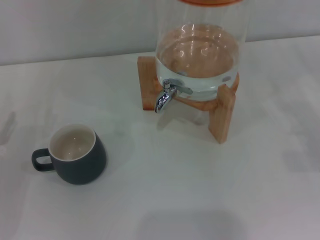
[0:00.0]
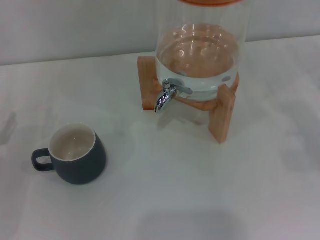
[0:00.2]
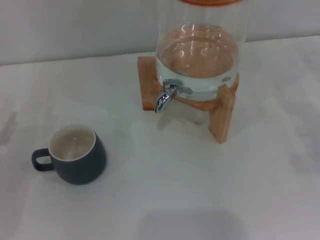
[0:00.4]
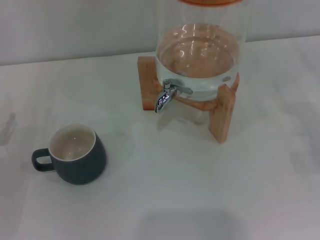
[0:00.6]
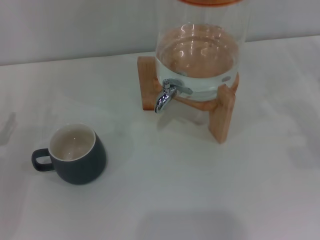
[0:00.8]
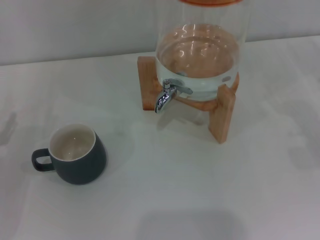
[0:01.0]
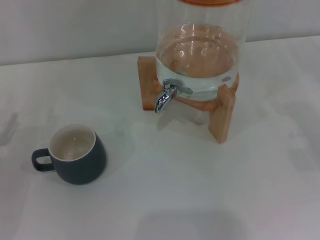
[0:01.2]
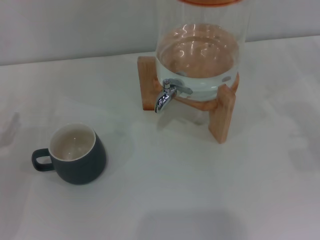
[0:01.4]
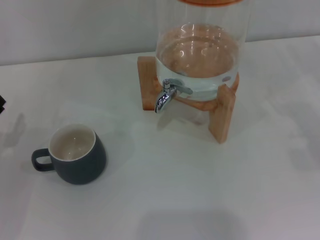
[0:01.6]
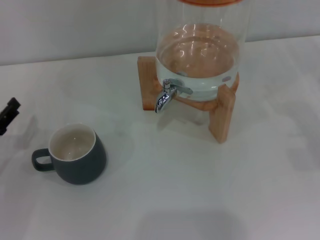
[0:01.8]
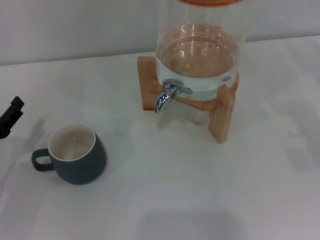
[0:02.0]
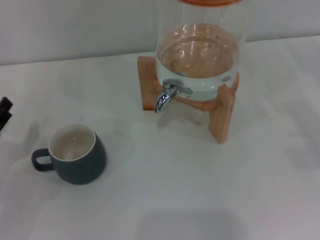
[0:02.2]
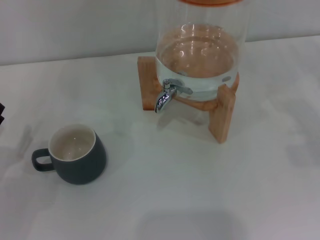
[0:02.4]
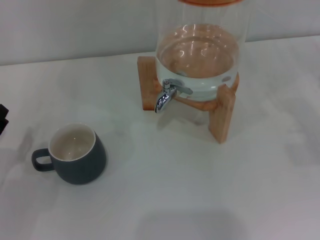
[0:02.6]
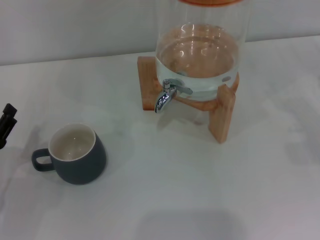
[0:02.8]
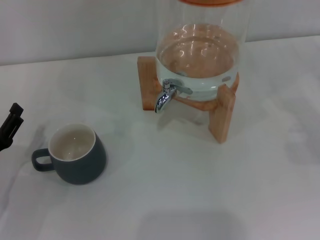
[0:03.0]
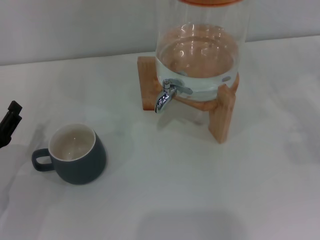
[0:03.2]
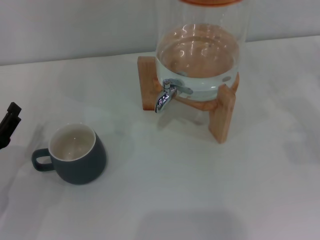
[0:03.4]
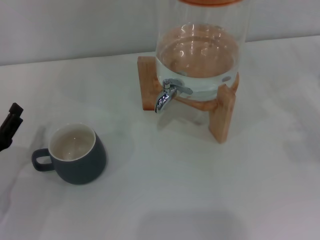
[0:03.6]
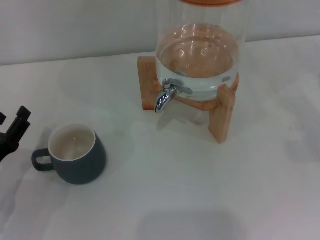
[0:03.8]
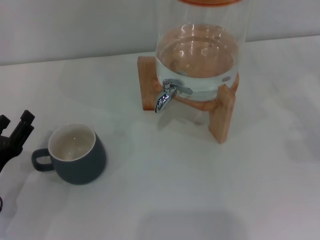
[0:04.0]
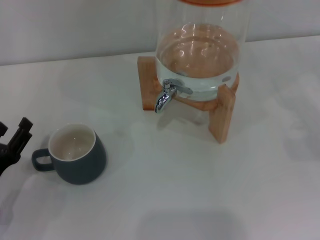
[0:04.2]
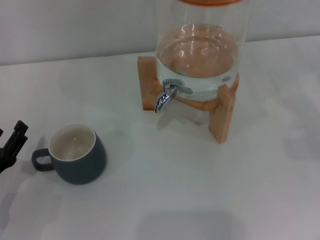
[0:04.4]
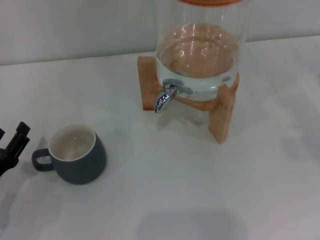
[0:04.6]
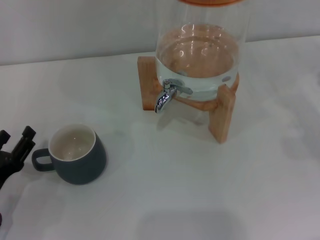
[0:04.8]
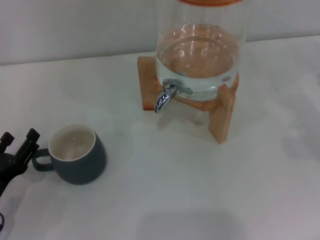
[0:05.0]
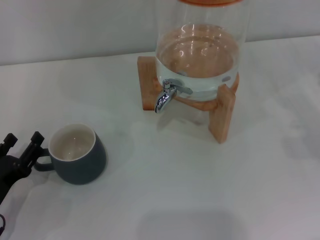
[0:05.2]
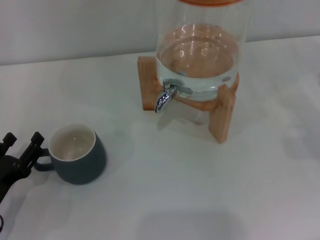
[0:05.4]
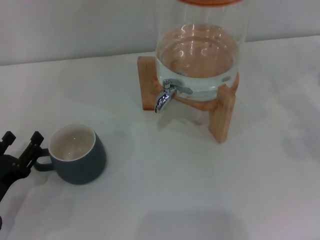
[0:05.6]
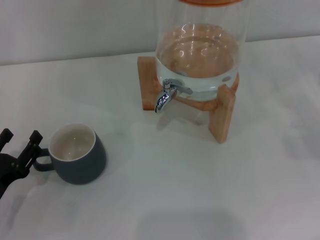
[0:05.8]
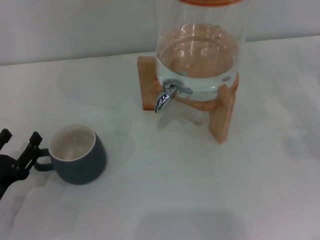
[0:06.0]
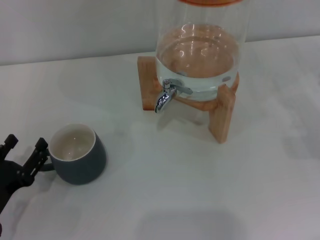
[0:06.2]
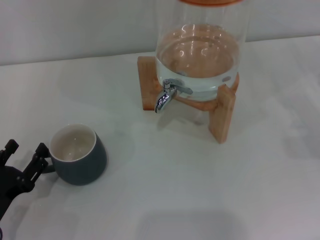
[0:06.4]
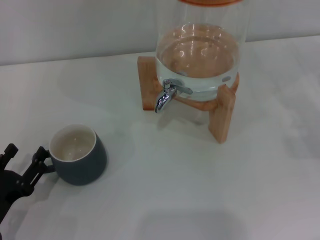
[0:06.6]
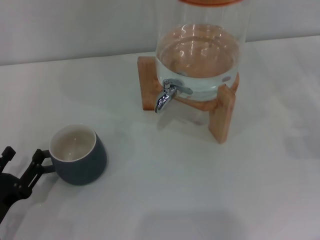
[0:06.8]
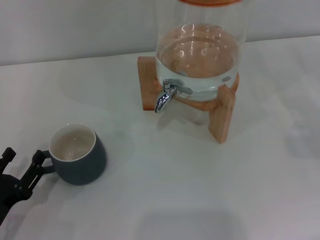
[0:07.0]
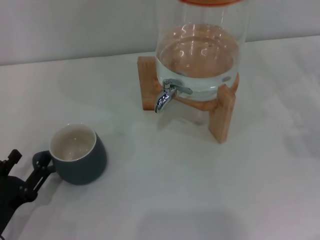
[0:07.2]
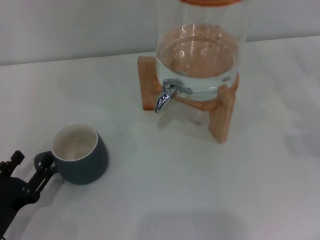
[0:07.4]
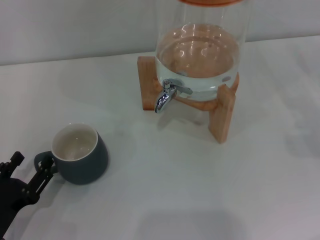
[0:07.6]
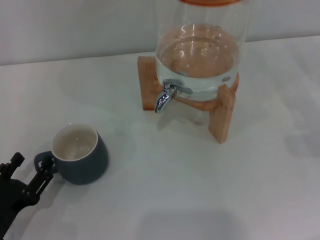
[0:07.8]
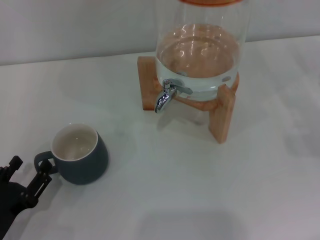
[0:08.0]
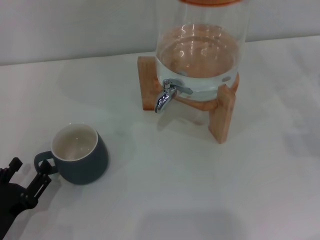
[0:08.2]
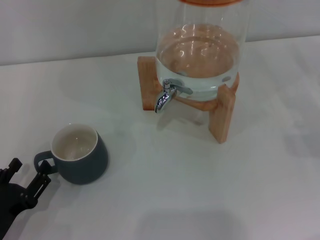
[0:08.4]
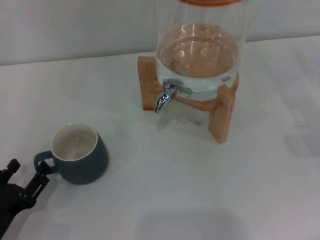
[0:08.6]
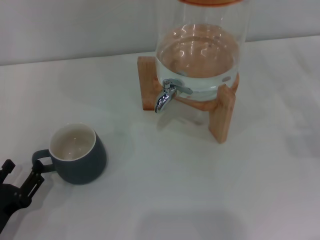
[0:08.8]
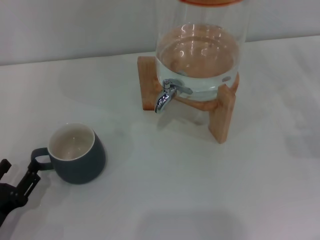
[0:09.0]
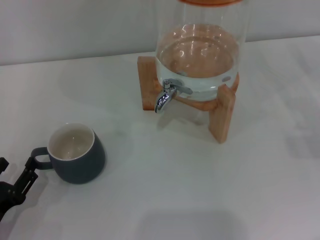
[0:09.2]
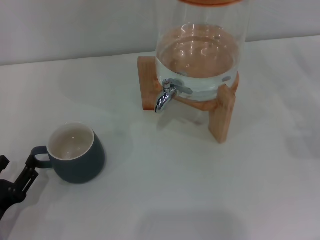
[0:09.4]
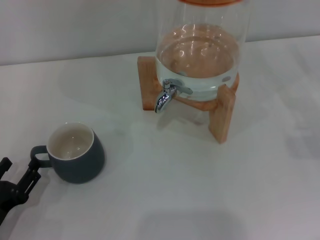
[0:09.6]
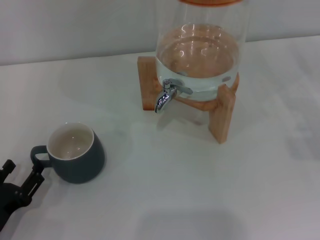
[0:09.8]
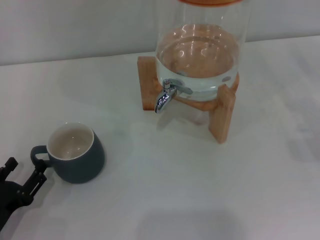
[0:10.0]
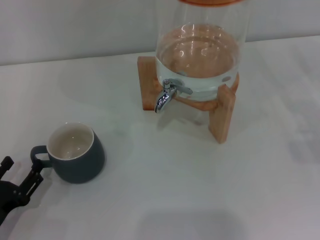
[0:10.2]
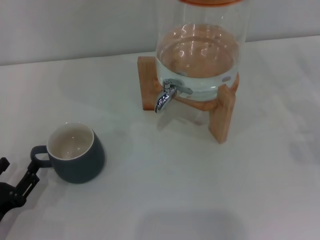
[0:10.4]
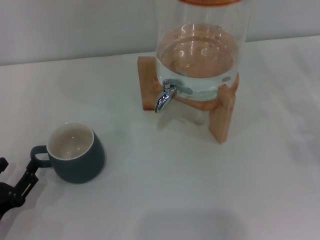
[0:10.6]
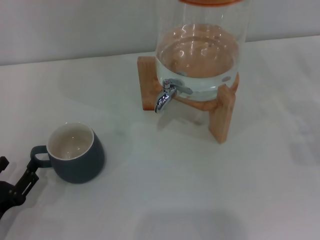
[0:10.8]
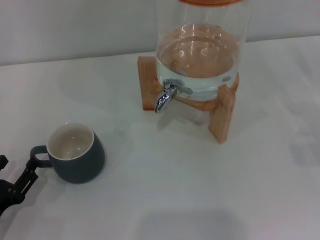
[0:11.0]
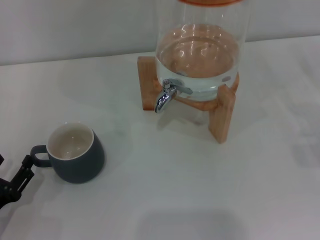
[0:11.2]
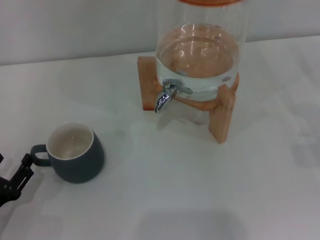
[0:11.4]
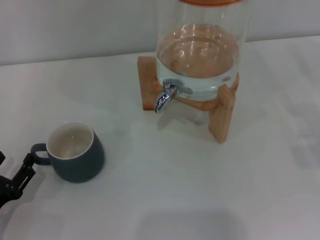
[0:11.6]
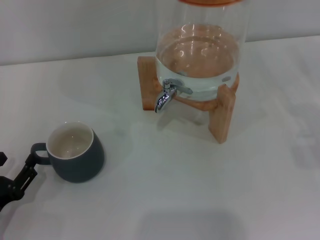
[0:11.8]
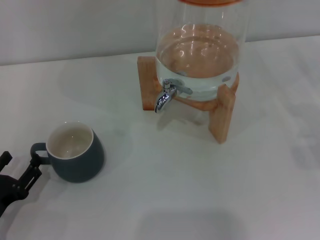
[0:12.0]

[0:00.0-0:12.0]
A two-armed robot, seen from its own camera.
Task of the whole recording: the left gripper pick up the black cup and place it horizontally under the faucet, the right gripper turn on the faucet to fill the cup, and then turn off the faucet.
0:01.6 to 0:03.0: The left gripper changes place by approximately 5 cm.
0:03.0 to 0:06.0: The grippers stay close to where they were, moving slightly.
0:06.0 to 0:09.0: The grippers make only small movements.
0:10.4 to 0:12.0: Both grippers stay put.

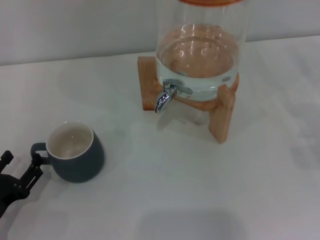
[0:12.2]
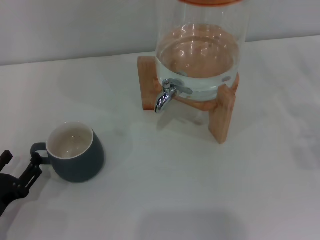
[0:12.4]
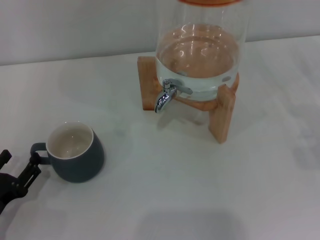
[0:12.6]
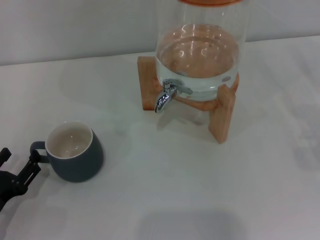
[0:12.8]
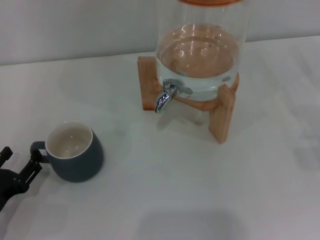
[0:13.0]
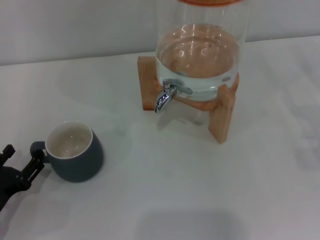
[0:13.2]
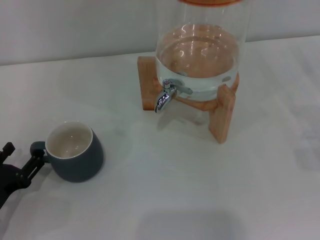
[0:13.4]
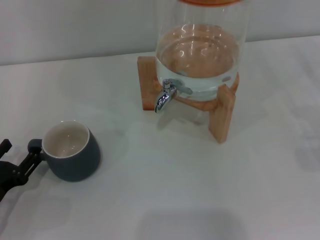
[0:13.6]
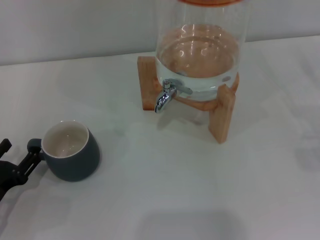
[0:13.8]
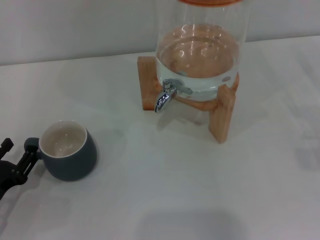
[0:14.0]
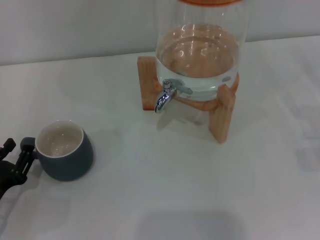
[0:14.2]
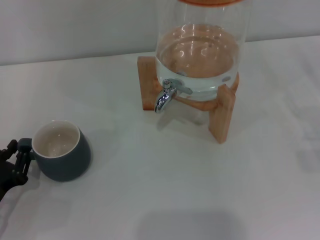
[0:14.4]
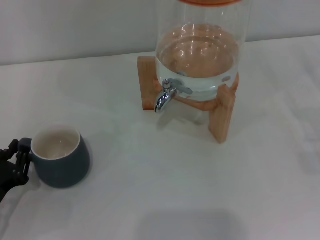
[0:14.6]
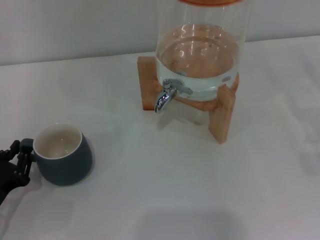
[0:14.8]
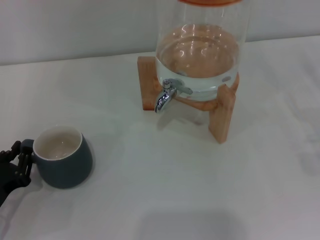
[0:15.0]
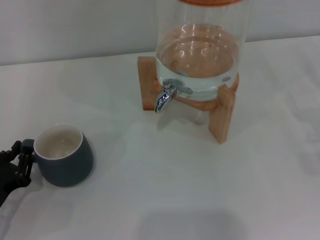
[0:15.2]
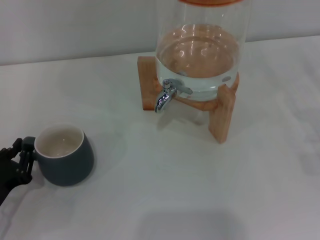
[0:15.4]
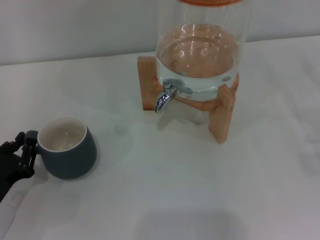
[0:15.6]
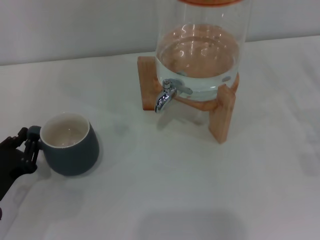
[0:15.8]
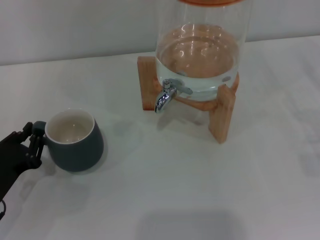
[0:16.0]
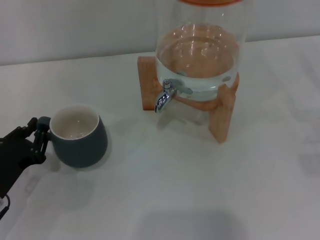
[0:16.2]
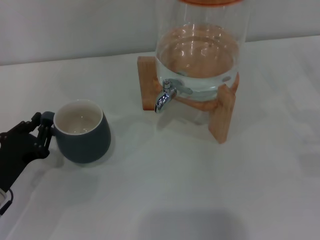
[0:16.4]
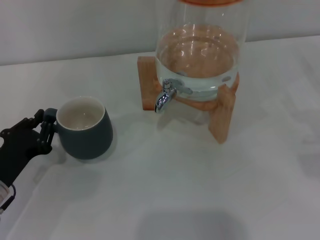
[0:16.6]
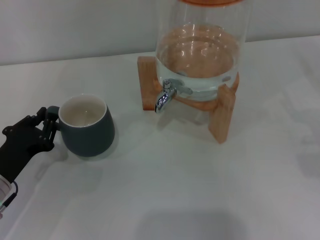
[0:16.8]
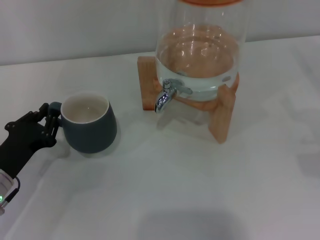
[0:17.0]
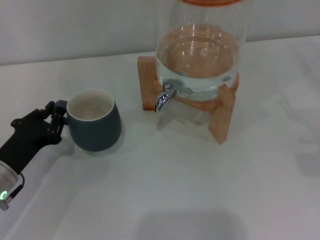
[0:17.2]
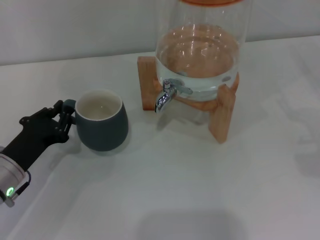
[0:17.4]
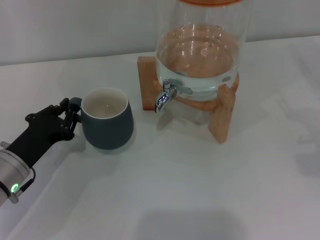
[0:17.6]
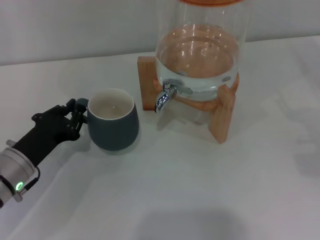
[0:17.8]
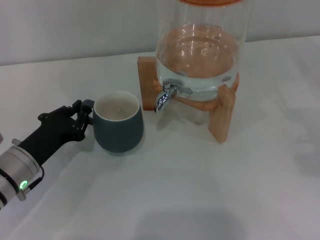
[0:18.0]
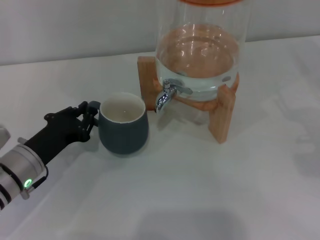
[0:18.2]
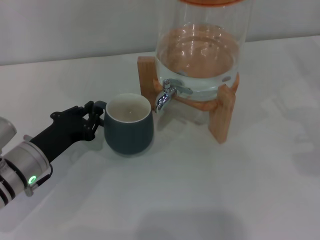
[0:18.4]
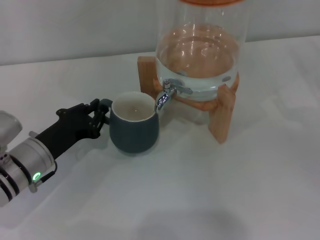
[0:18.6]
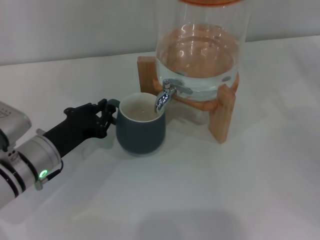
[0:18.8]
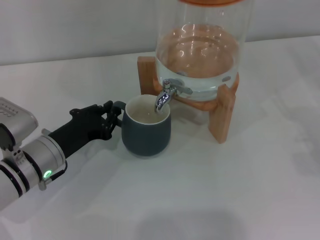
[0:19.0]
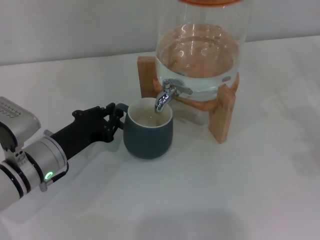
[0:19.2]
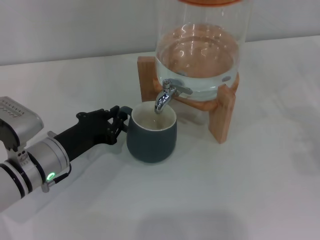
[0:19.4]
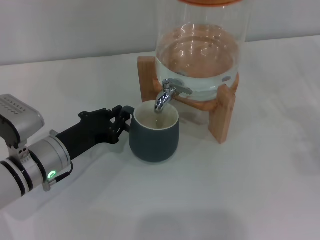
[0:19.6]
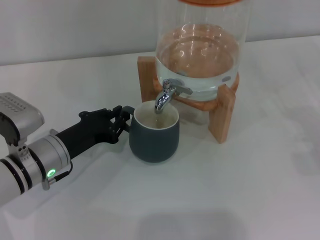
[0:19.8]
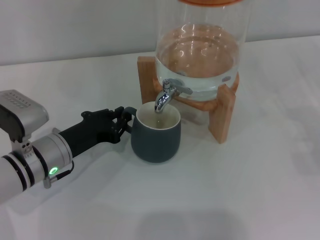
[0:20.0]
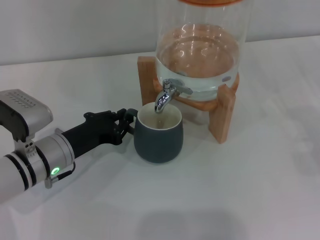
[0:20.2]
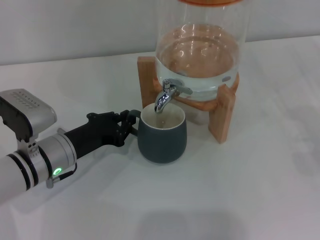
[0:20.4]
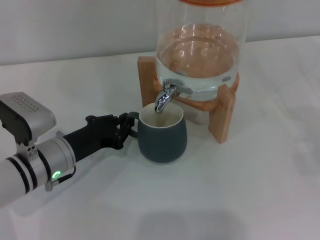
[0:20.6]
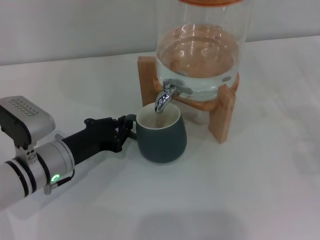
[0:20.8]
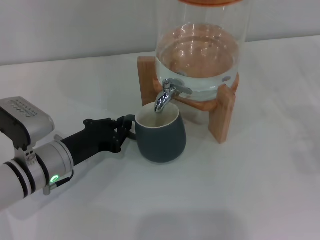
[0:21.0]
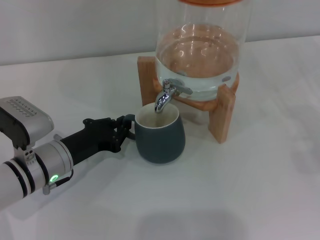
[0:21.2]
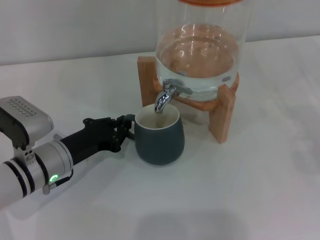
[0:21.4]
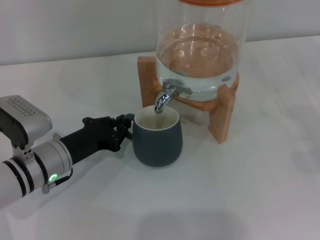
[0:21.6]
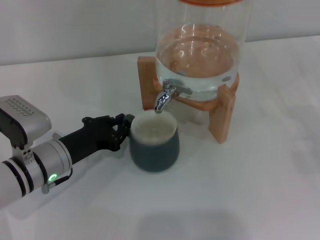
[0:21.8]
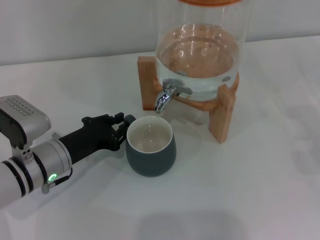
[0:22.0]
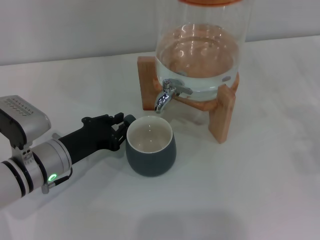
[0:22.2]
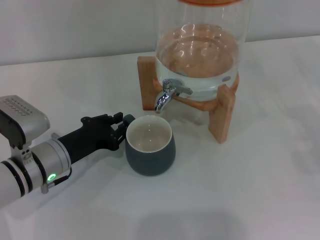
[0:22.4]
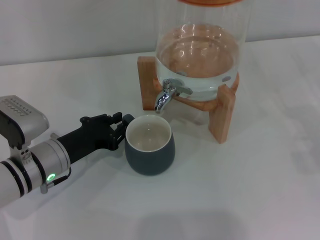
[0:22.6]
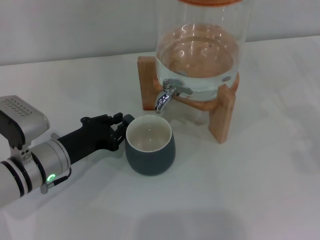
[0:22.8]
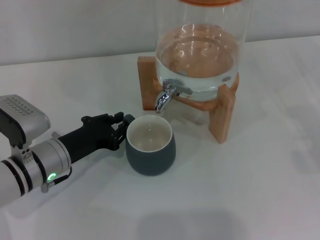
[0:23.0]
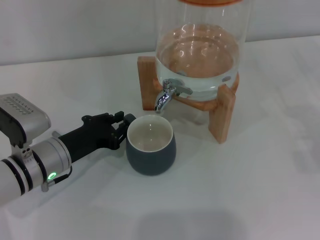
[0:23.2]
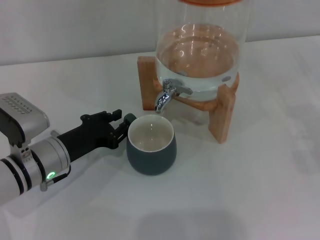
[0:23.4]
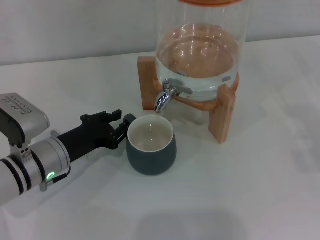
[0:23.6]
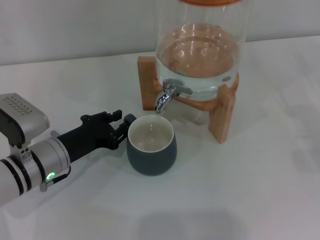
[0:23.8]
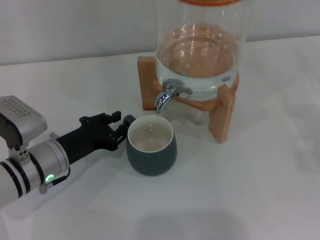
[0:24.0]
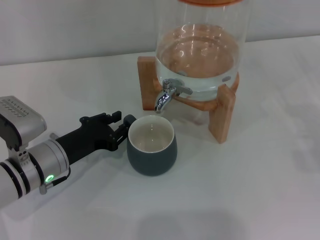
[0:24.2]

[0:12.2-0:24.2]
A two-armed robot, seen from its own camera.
Task of the whole recording: the left gripper pick up the black cup and place it horizontally under the faucet, the right gripper turn on the faucet to fill the cup, and then turn off the faucet.
0:12.2 to 0:13.8: The grippers make only small movements.
0:13.8 to 0:15.2: The left gripper closes its fingers.
0:15.2 to 0:16.6: The left gripper moves some 5 cm.
0:16.6 to 0:18.2: The left gripper ends up roughly 5 cm from where it was.
0:18.2 to 0:21.2: The grippers make only small movements.
0:21.2 to 0:24.2: Both grippers stay about where they are.
